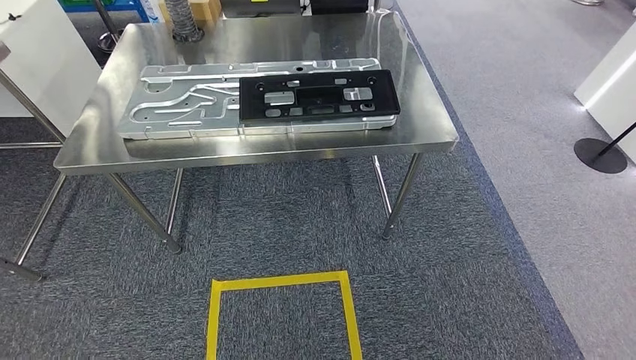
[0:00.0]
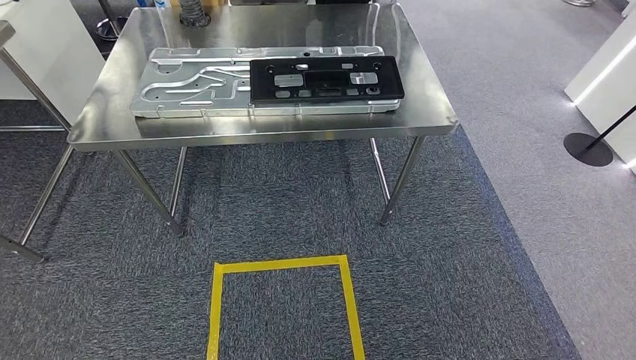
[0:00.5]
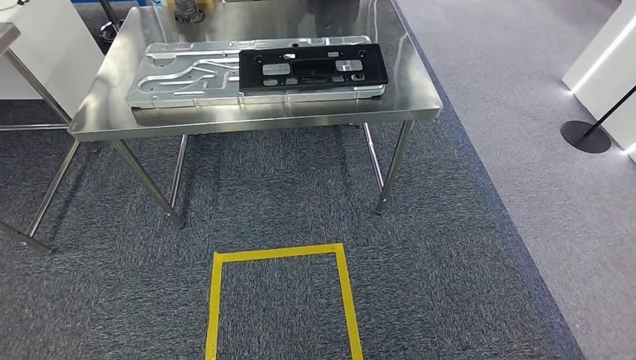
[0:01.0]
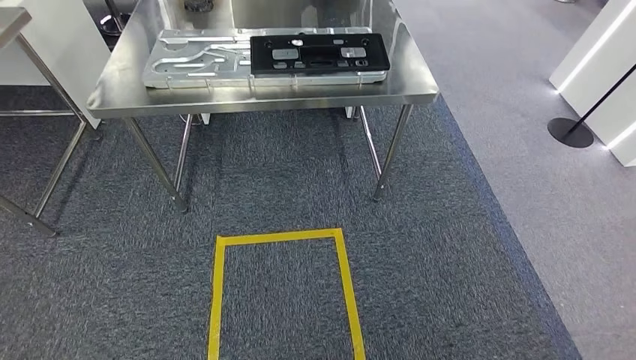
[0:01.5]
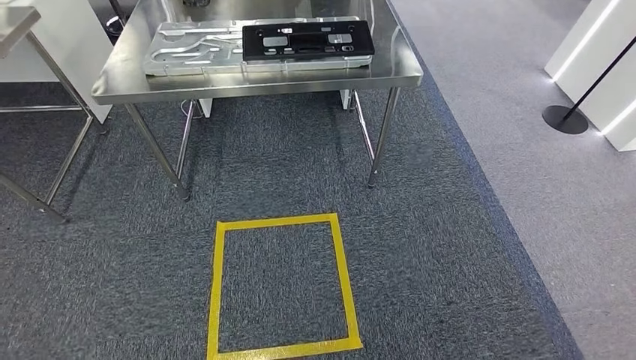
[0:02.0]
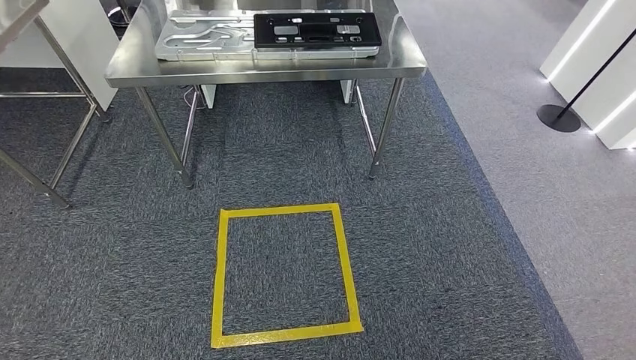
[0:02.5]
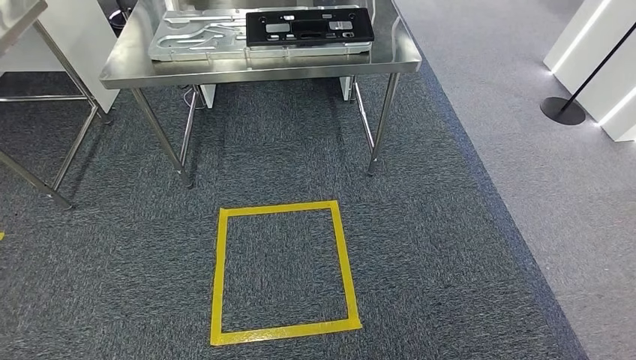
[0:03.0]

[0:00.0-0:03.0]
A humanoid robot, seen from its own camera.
Step, 0:00.0 to 0:03.0: Return to the initial position at the shelf.
